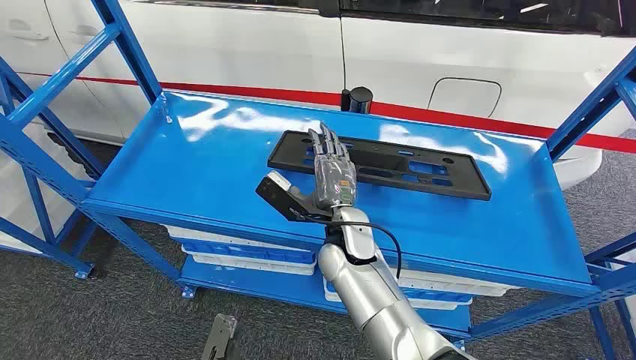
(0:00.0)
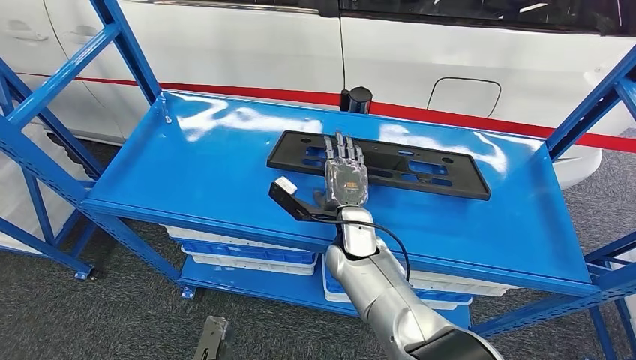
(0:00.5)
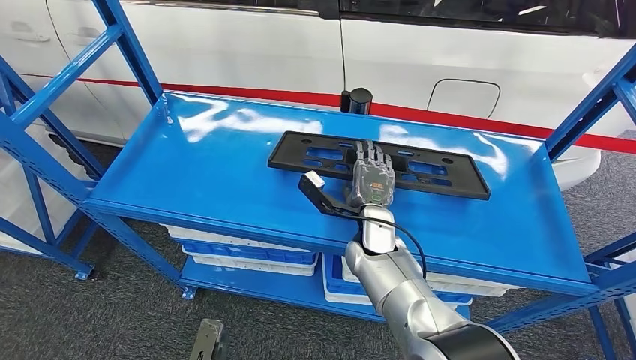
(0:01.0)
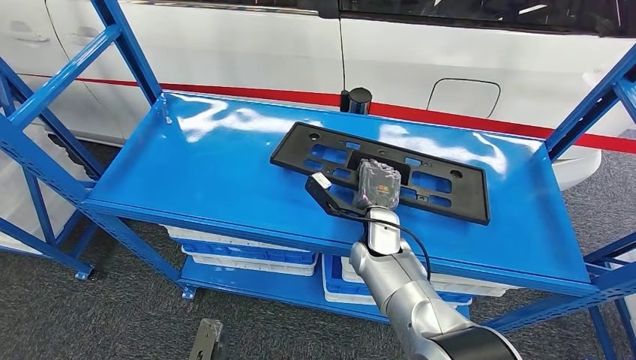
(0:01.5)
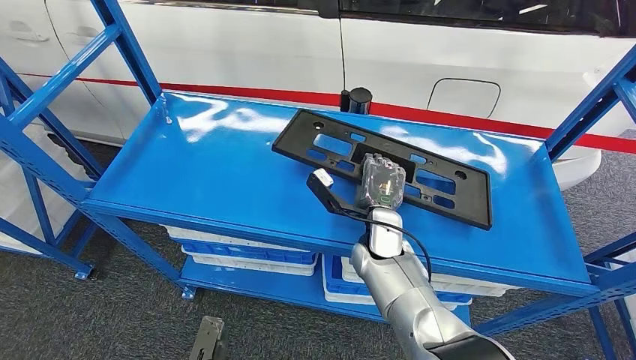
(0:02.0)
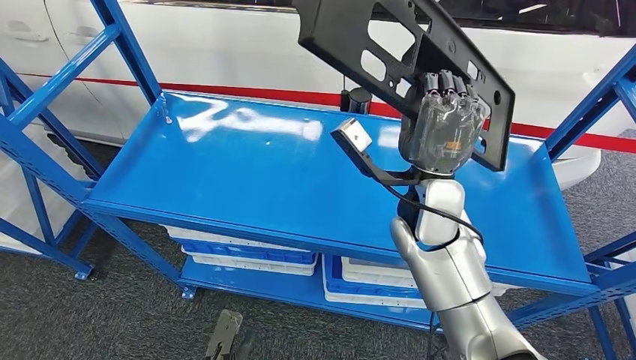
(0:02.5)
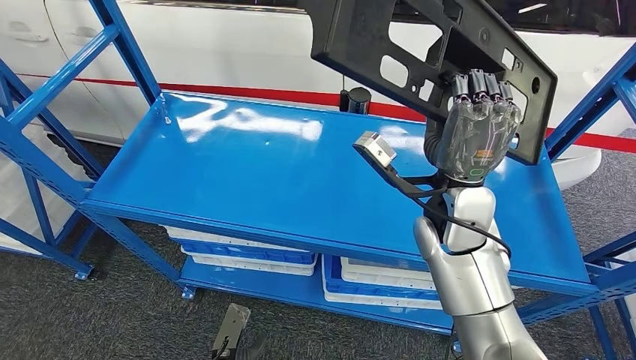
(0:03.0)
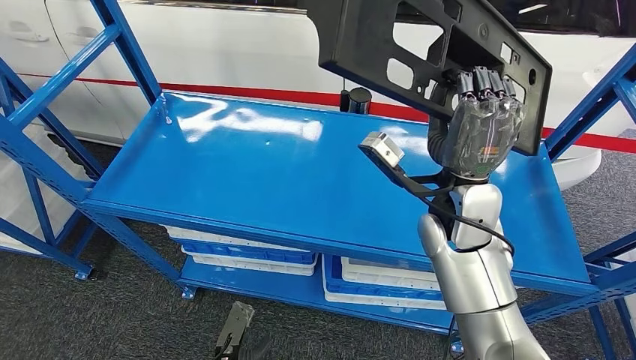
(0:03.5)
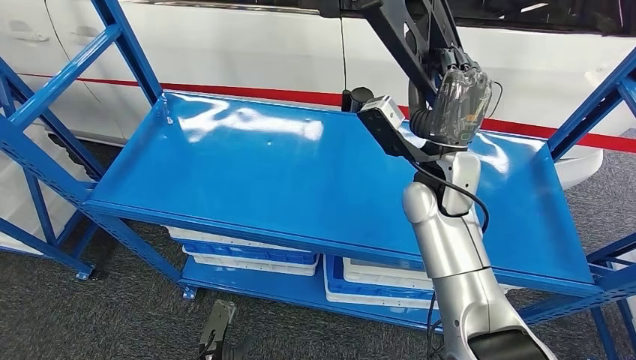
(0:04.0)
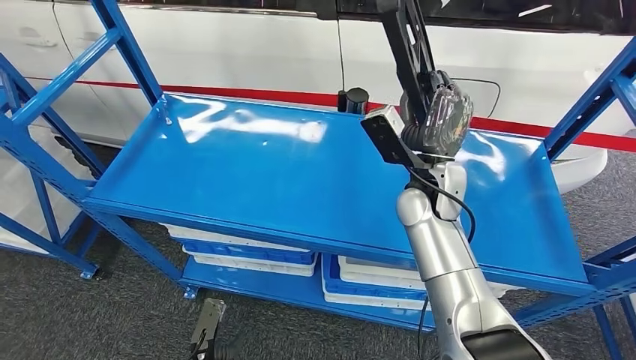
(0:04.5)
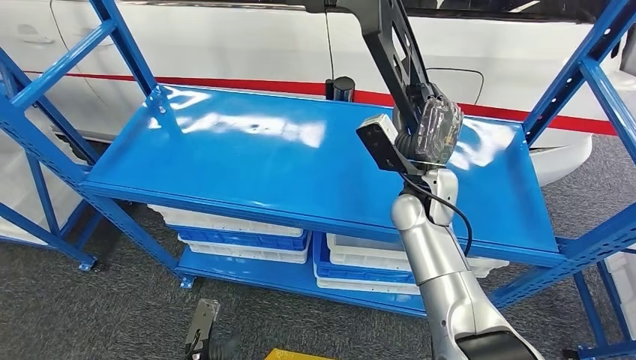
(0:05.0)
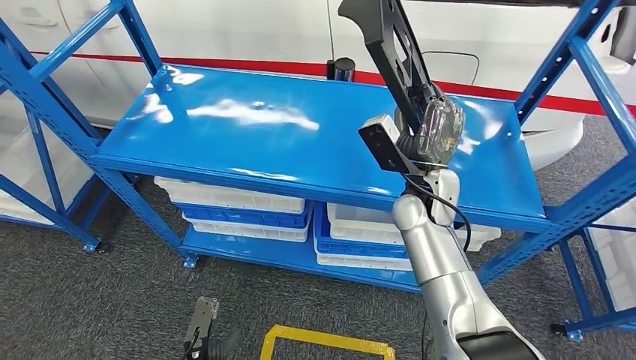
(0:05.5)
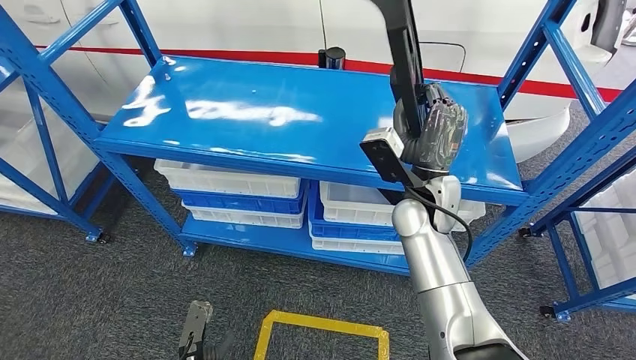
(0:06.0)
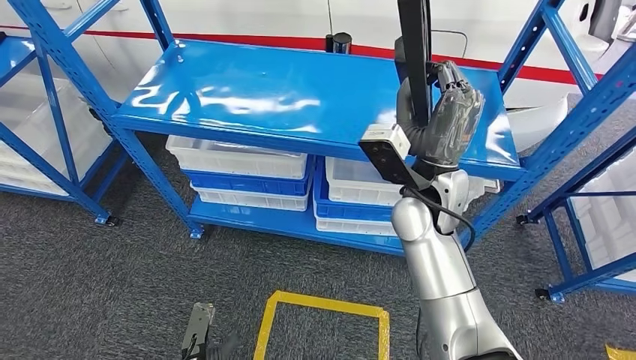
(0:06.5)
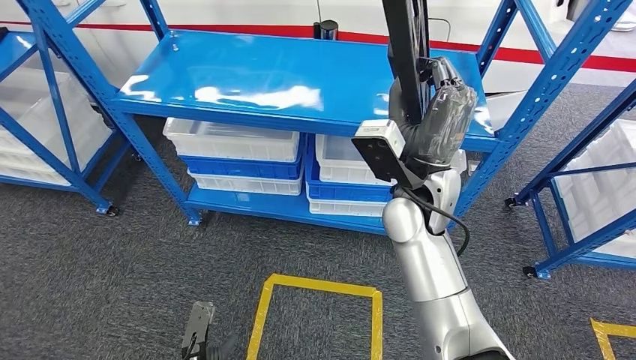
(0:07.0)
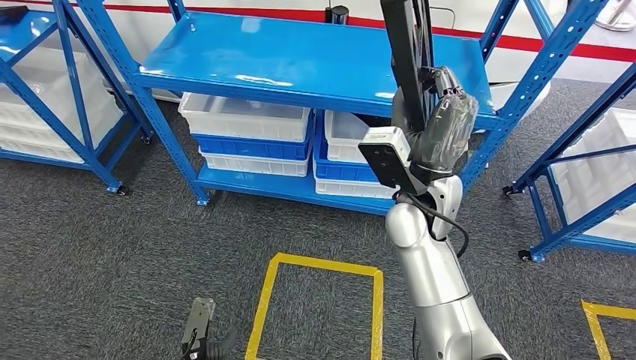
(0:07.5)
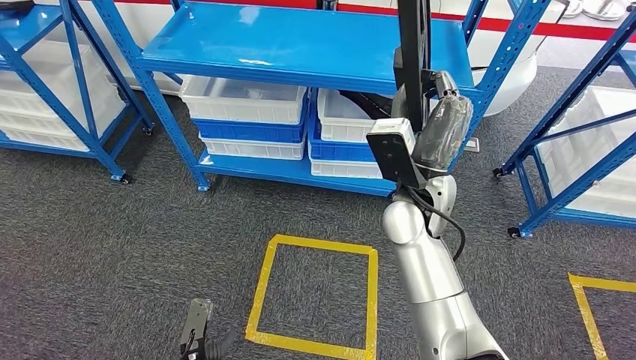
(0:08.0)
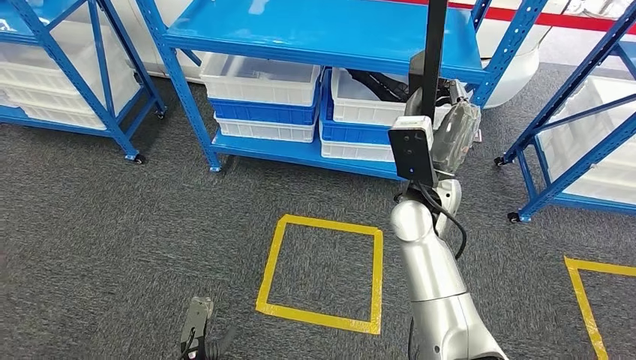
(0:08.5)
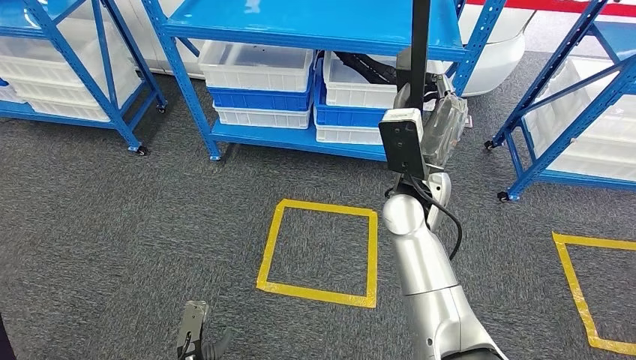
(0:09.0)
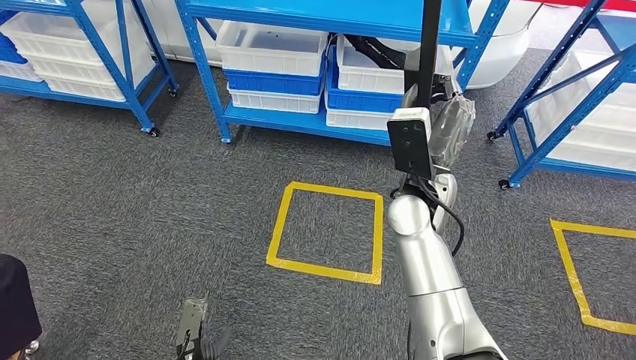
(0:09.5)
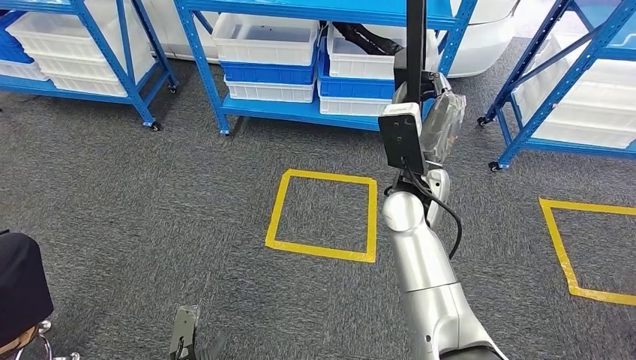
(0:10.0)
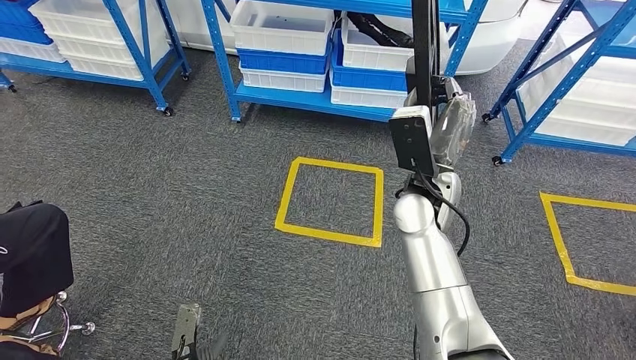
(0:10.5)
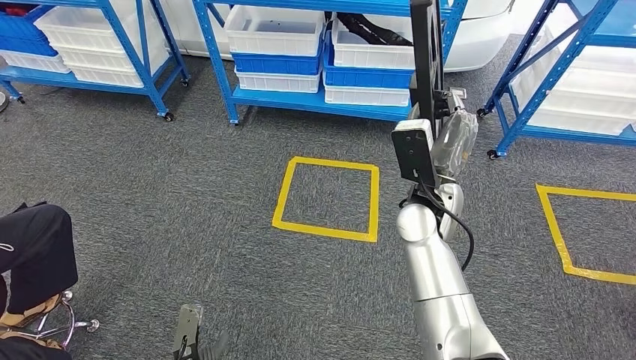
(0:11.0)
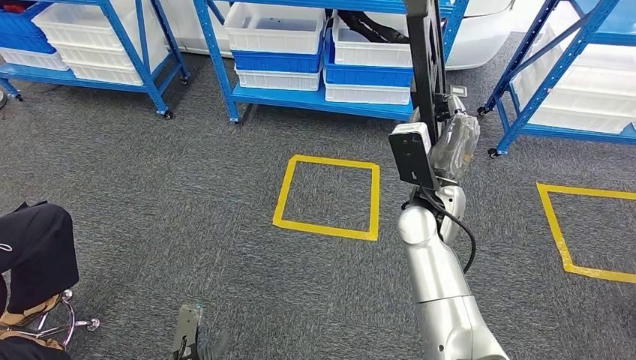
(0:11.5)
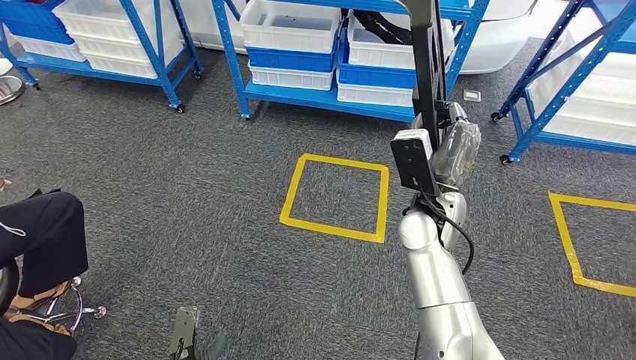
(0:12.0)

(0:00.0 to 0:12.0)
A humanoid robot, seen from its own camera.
Step, 0:00.0 - 0:04.0: Pick up the large material from the shelf.

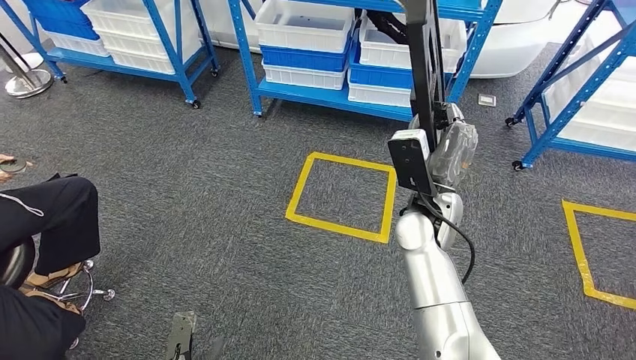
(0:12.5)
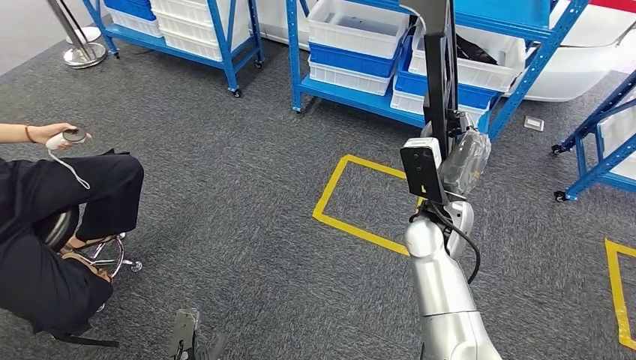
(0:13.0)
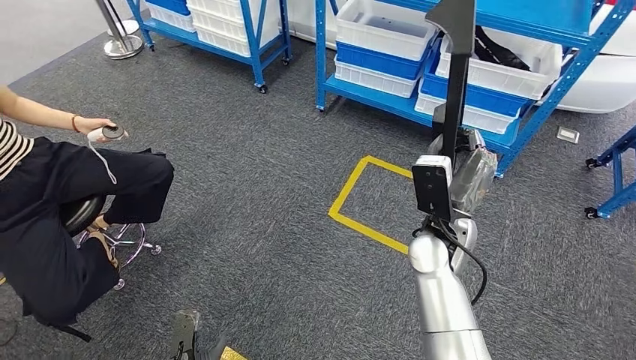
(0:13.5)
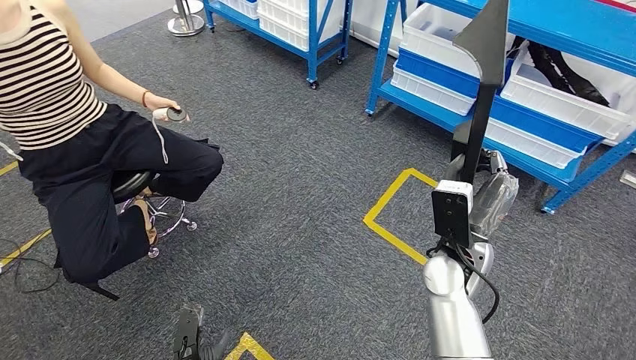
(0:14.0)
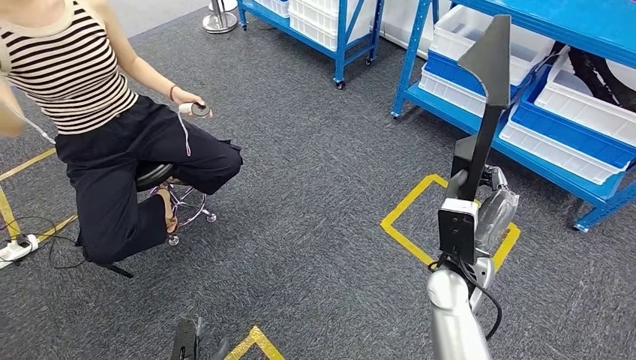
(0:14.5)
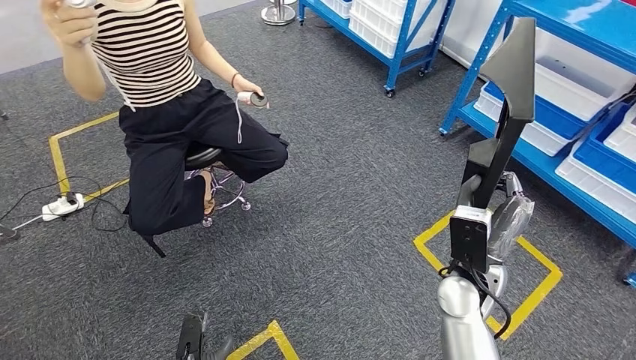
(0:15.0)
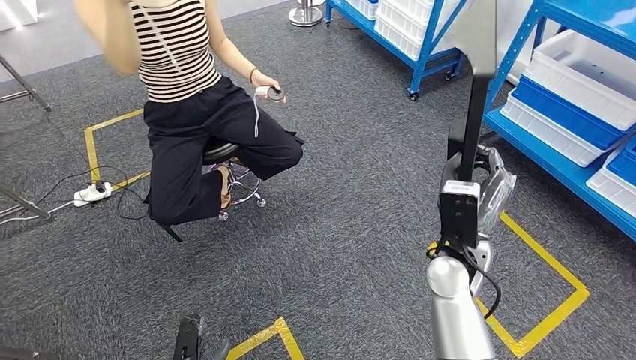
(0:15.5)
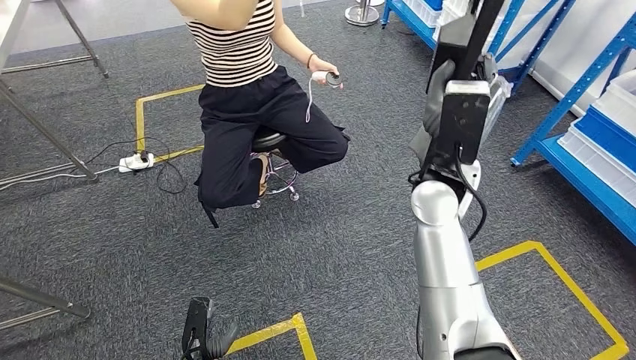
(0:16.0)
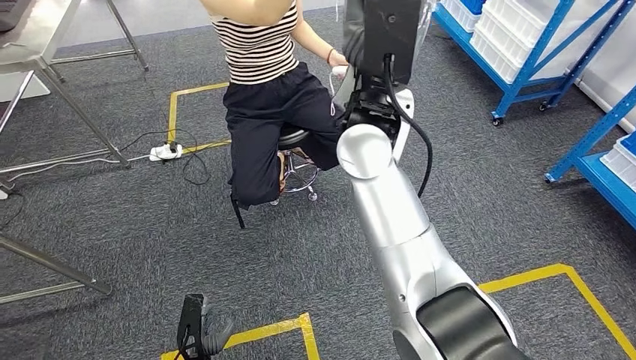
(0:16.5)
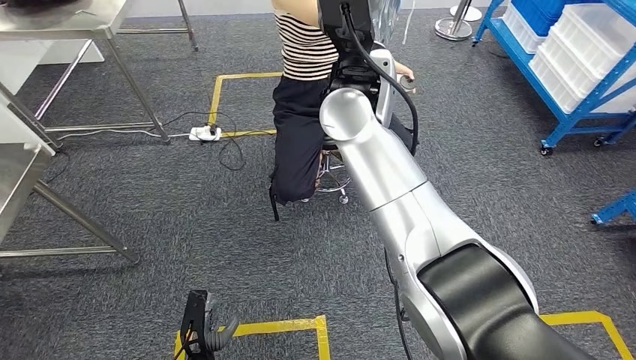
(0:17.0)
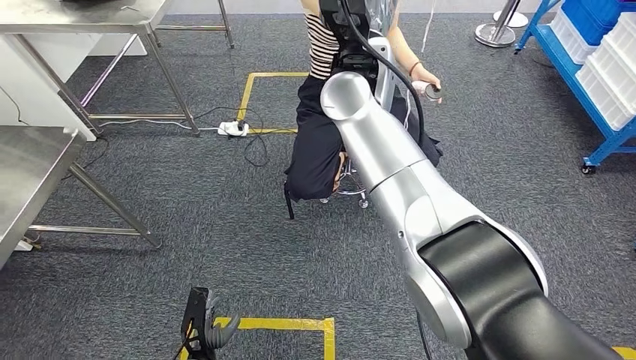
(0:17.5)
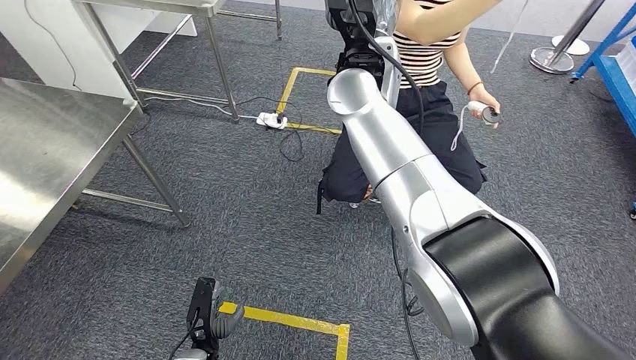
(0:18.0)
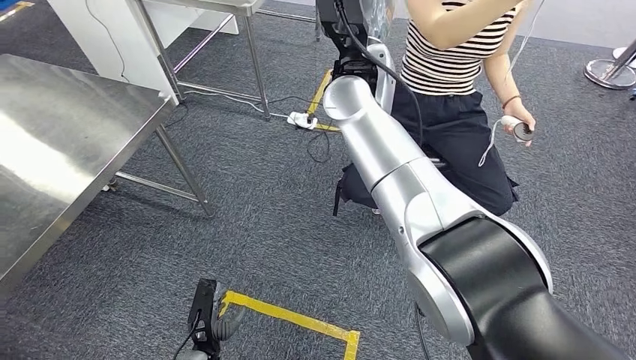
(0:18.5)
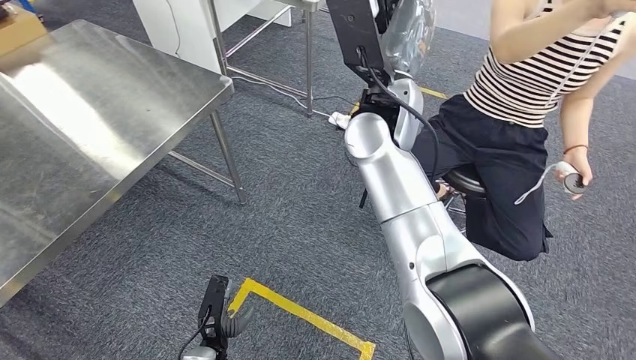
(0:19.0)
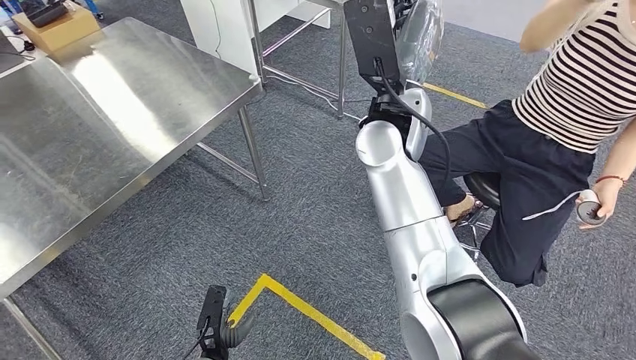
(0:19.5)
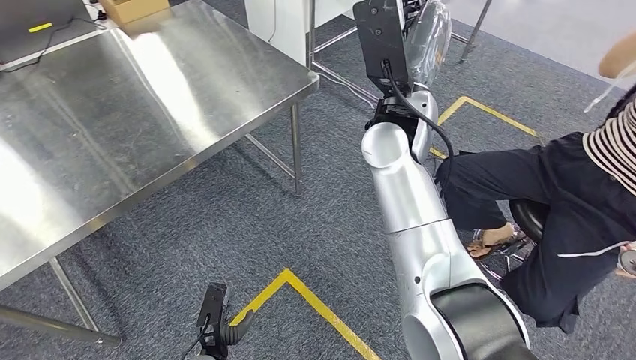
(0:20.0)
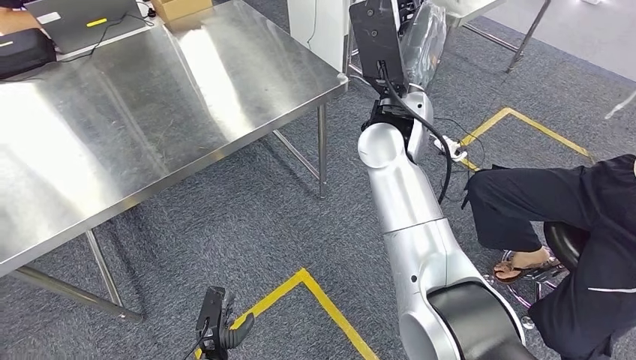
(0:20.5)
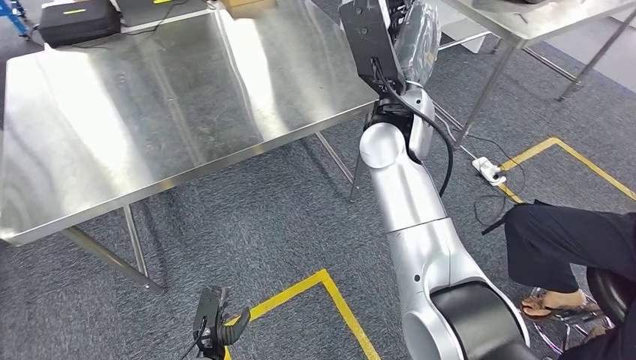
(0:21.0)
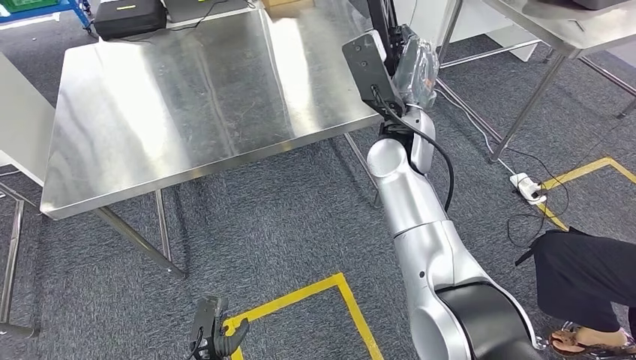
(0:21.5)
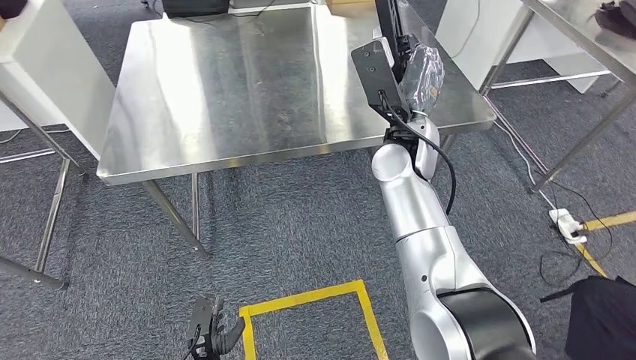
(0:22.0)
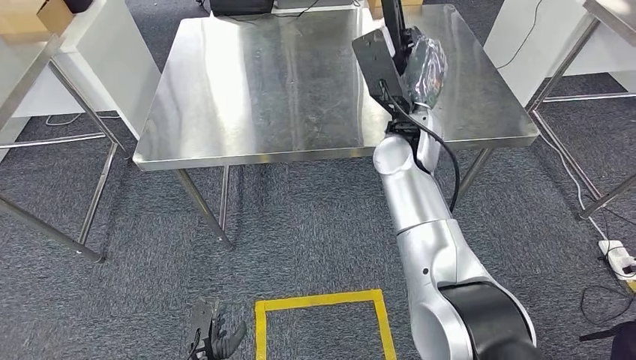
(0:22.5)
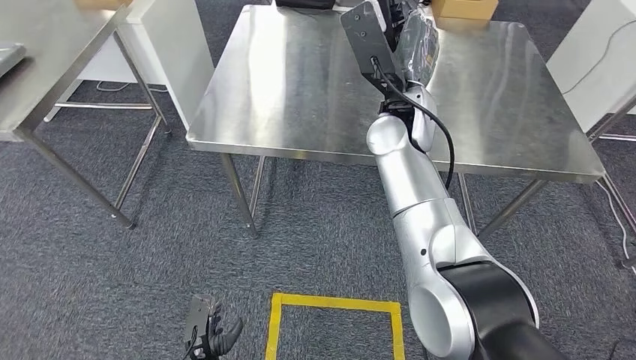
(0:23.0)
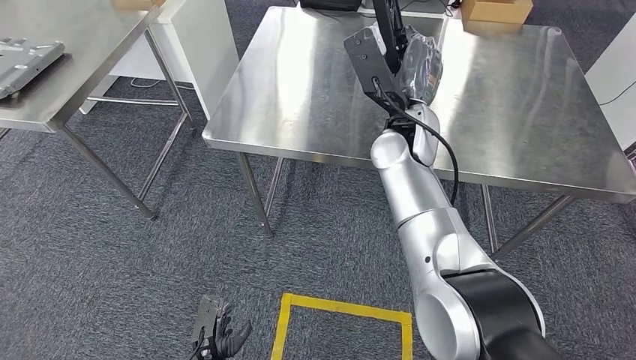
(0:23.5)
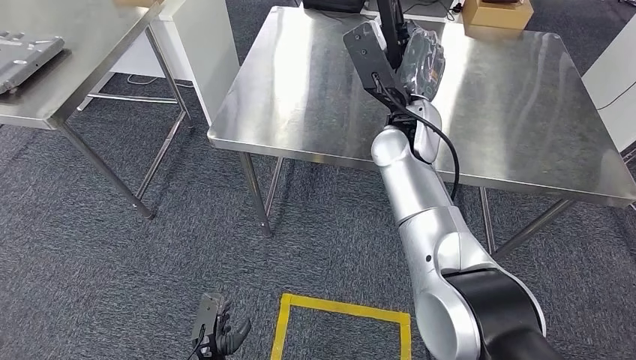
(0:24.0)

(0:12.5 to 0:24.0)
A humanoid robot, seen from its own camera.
Step, 0:12.5 - 0:22.0: Move the large material to the front of the workbench.
